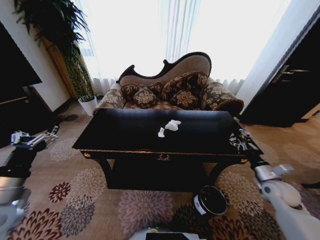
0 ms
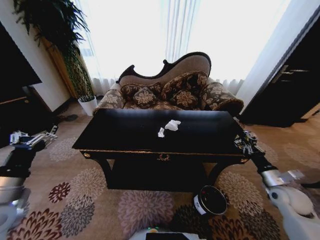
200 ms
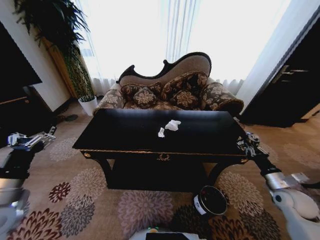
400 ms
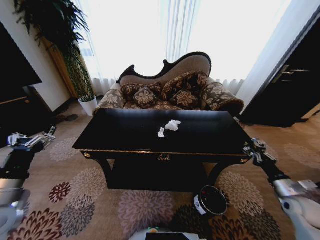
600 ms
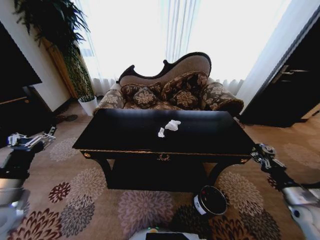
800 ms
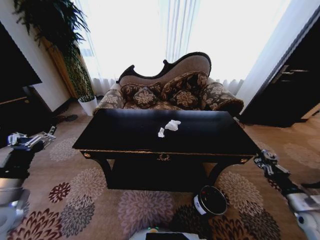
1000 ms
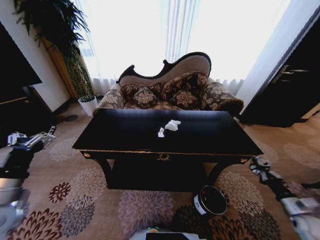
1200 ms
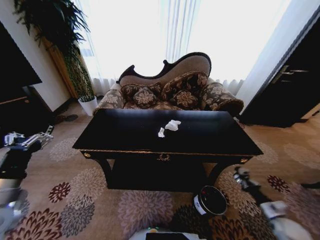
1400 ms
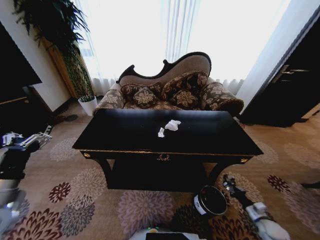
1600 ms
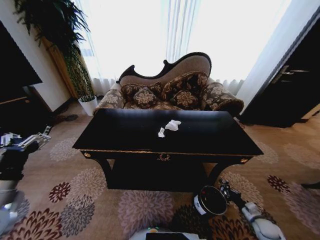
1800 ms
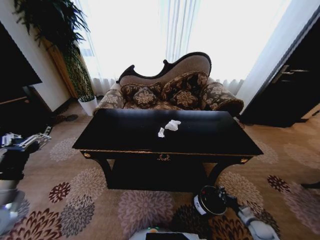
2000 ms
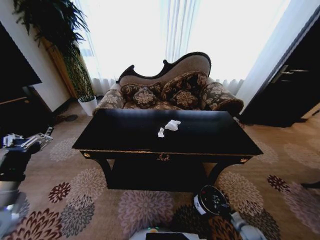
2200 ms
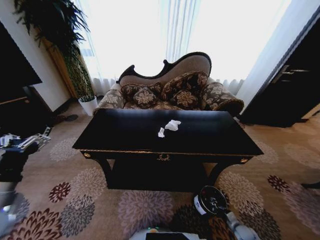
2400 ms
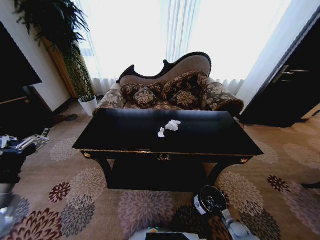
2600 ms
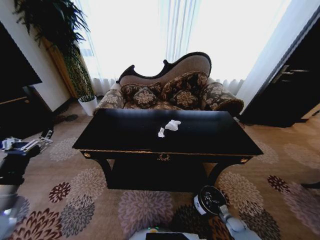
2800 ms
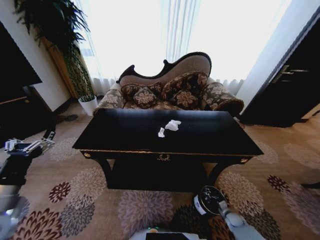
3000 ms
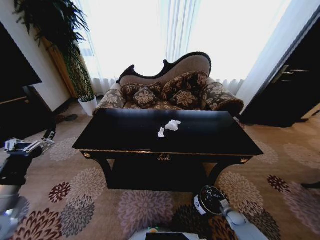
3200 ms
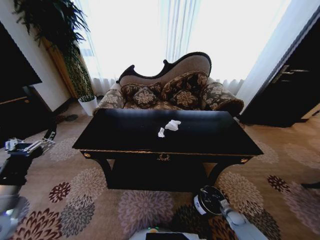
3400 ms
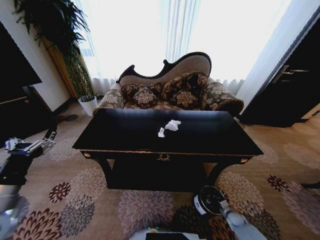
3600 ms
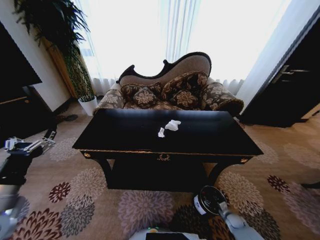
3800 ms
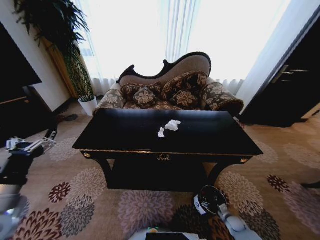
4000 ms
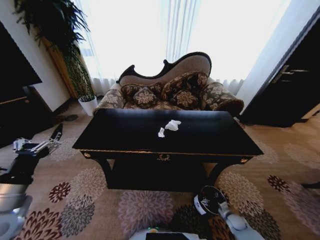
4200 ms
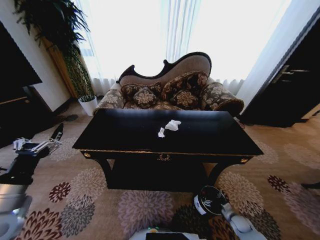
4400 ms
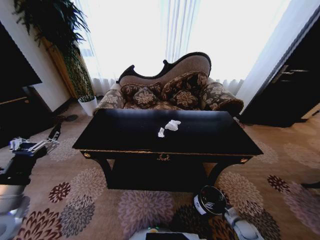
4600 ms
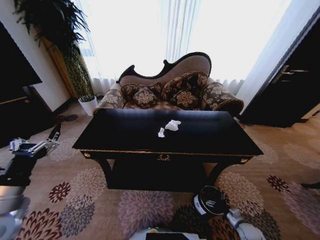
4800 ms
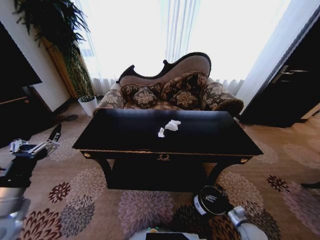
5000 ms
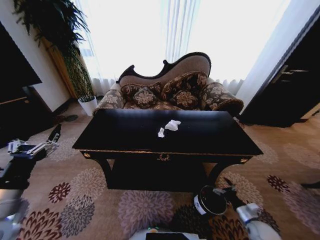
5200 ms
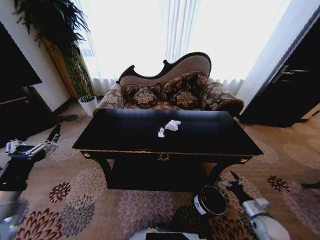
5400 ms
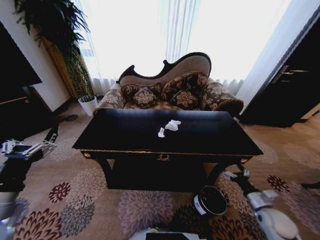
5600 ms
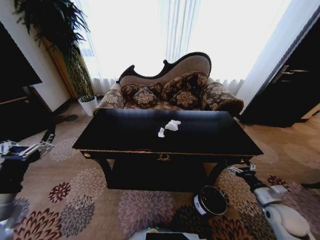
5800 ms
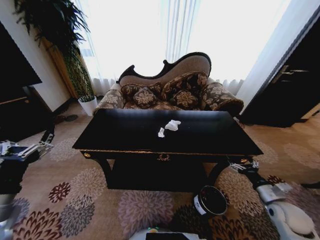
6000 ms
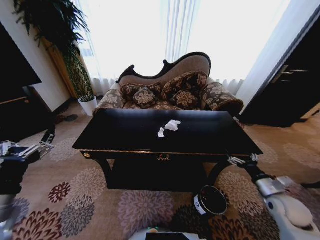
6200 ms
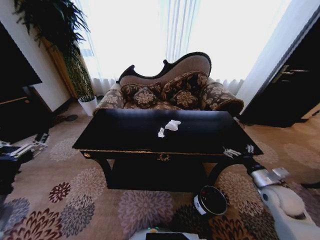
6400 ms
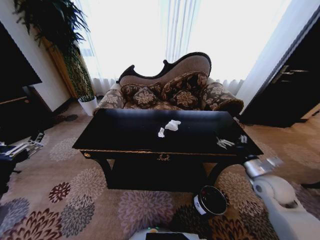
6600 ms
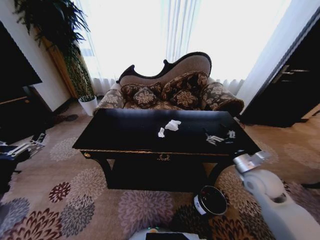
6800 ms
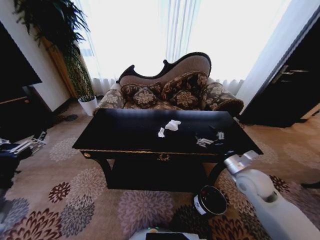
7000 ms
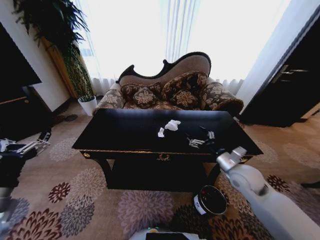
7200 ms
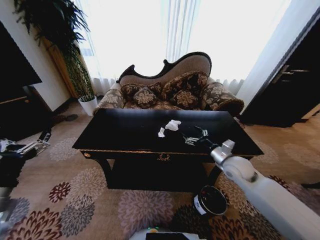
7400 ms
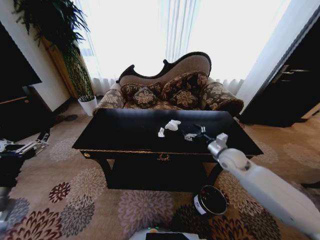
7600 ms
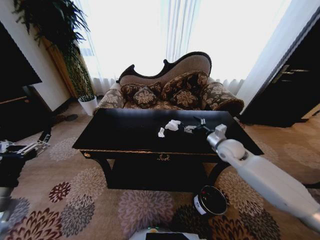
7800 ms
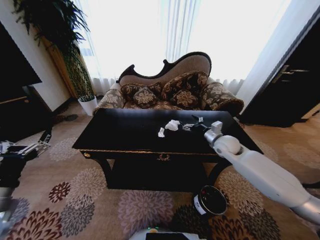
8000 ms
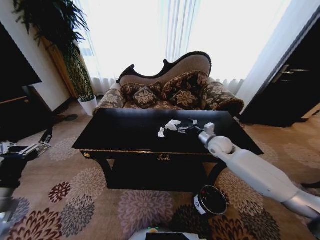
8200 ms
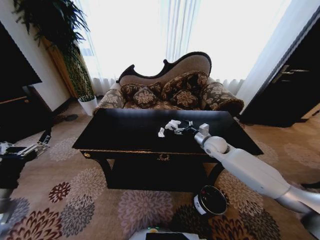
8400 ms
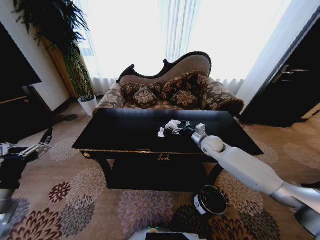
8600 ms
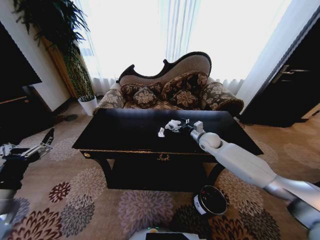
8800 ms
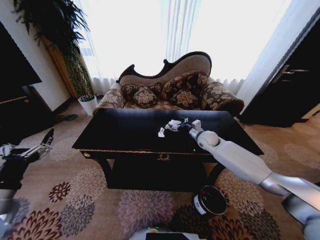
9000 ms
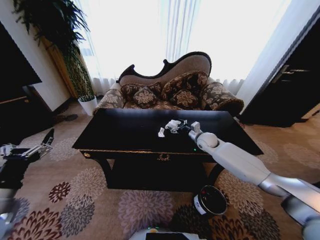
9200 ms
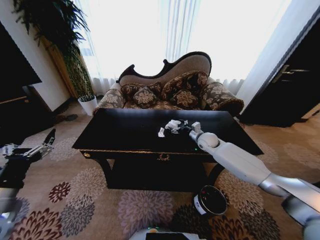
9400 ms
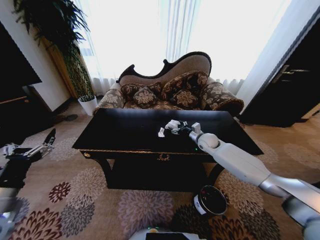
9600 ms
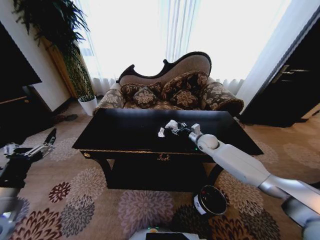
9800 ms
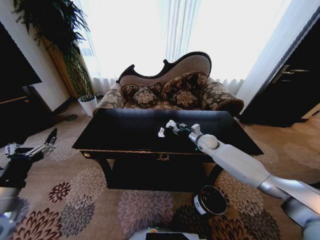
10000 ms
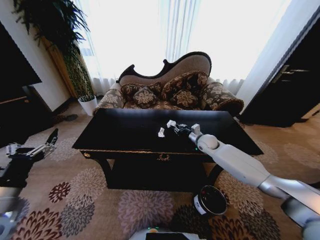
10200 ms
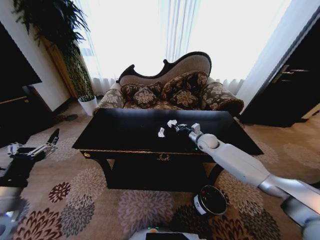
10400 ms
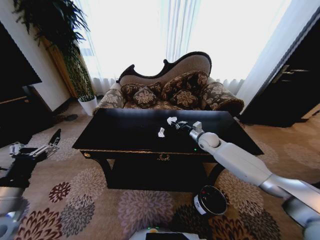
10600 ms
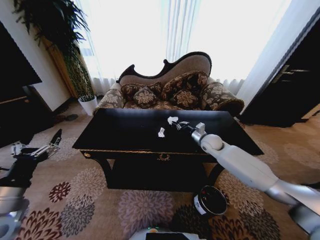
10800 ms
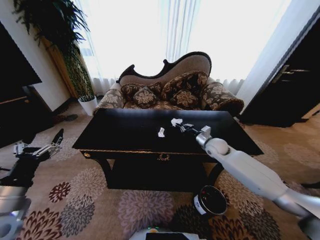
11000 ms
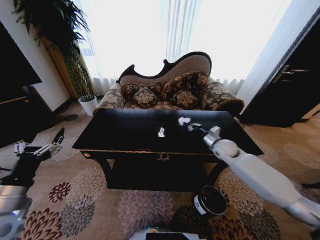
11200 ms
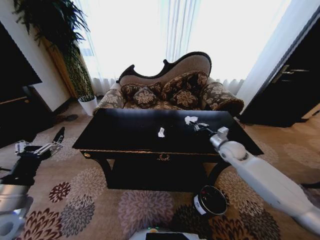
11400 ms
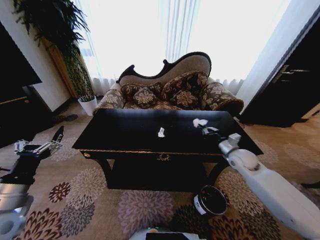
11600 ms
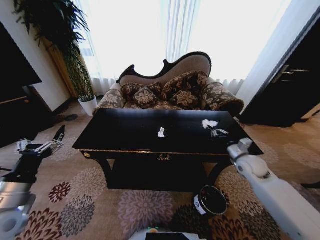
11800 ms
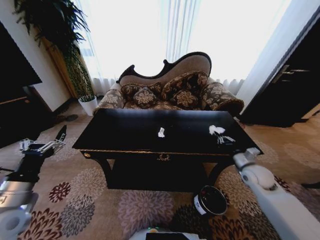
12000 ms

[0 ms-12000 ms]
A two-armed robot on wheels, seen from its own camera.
Task of the whole recording: Move to the front of the table and place the trash on the table into the trash bin.
0 ms to 1600 ms: The right gripper is displaced downward and backward by about 25 cm.
1600 ms to 3000 ms: The right gripper goes roughly 15 cm downward and to the left.
3000 ms to 4400 ms: The right gripper opens up.
4400 ms to 6000 ms: The right gripper goes about 25 cm upward.
6000 ms to 7600 ms: The right gripper travels forward, to the left and upward by about 25 cm.
7600 ms to 9000 ms: The right gripper moves forward, some 15 cm.
9000 ms to 10400 ms: The right gripper closes its fingers.
10400 ms to 12000 ms: The right gripper moves backward and to the right, roughly 25 cm.

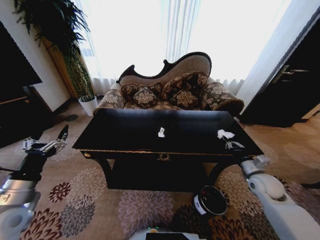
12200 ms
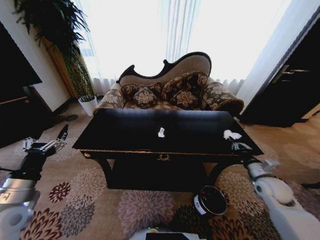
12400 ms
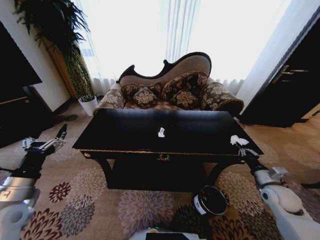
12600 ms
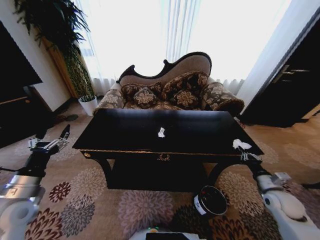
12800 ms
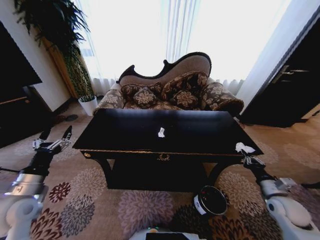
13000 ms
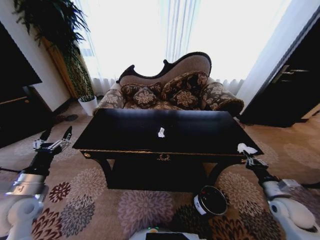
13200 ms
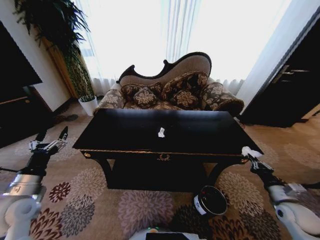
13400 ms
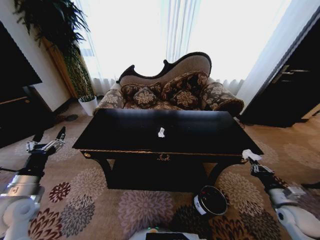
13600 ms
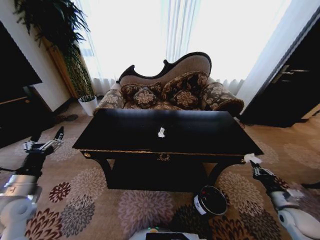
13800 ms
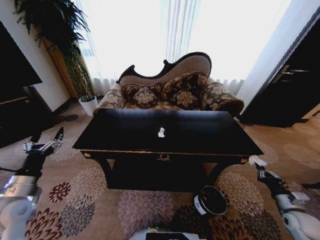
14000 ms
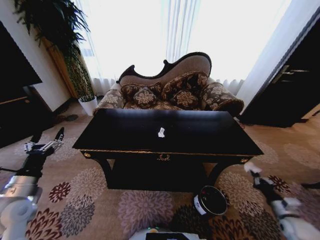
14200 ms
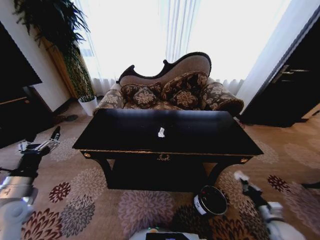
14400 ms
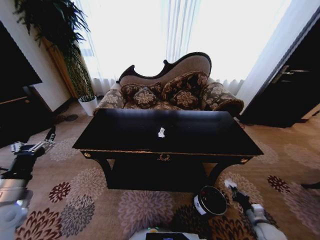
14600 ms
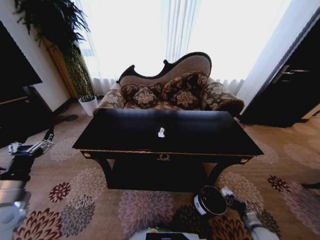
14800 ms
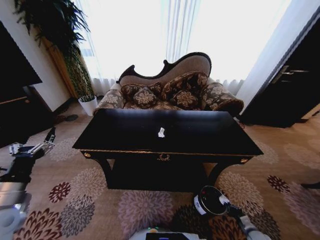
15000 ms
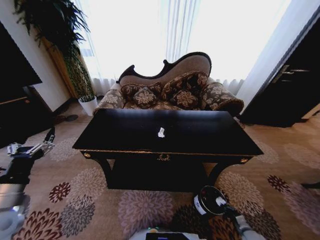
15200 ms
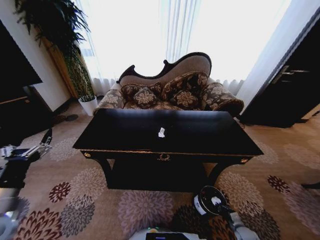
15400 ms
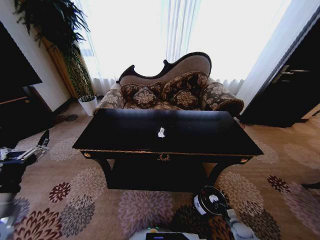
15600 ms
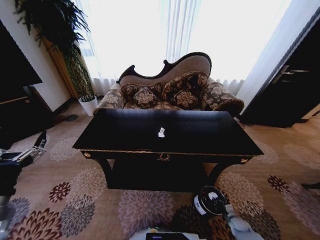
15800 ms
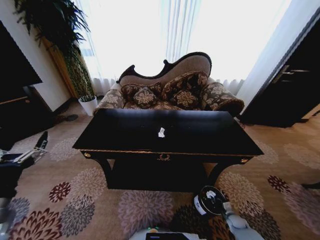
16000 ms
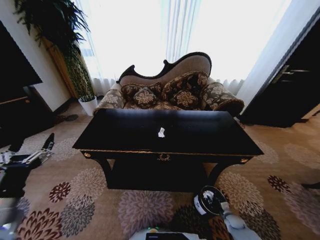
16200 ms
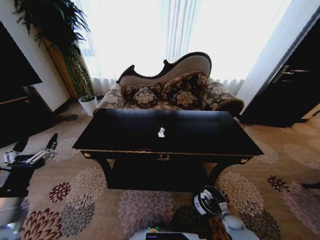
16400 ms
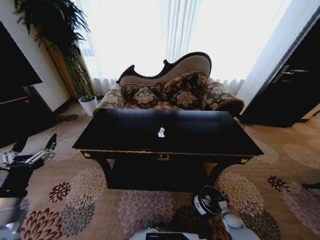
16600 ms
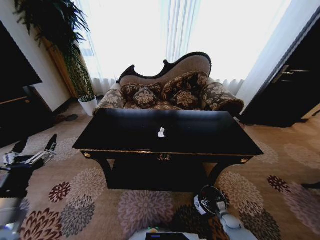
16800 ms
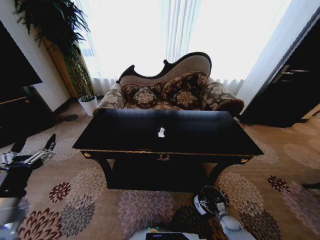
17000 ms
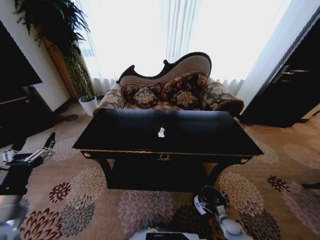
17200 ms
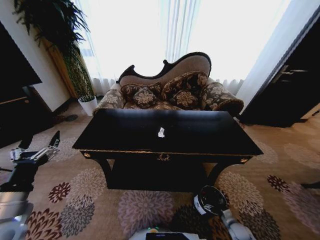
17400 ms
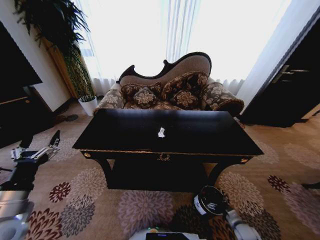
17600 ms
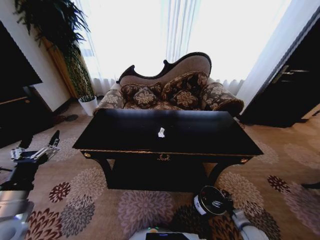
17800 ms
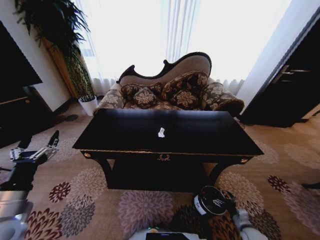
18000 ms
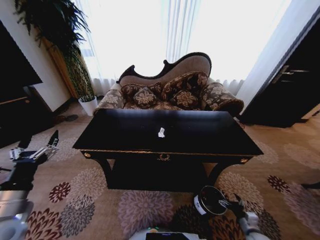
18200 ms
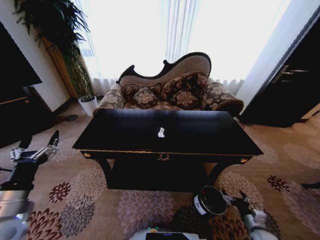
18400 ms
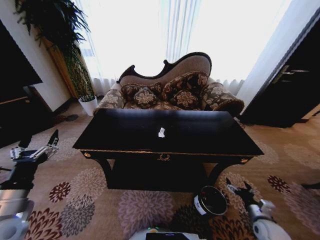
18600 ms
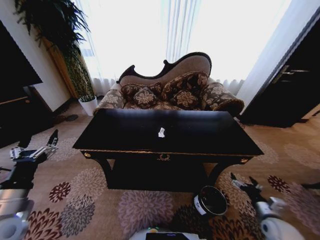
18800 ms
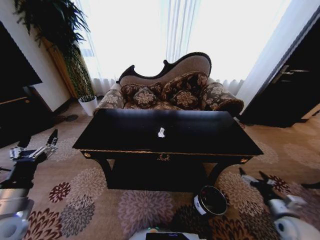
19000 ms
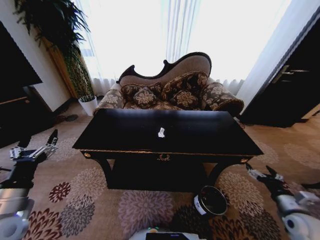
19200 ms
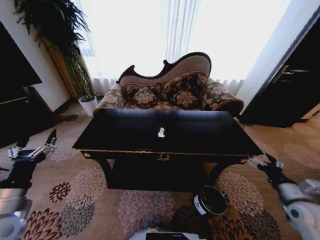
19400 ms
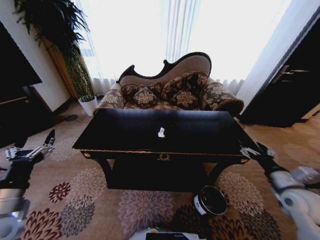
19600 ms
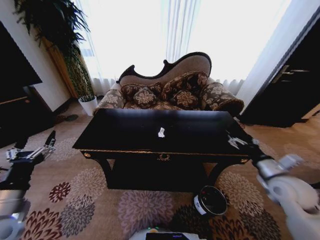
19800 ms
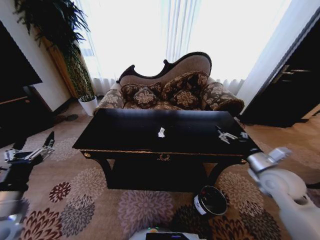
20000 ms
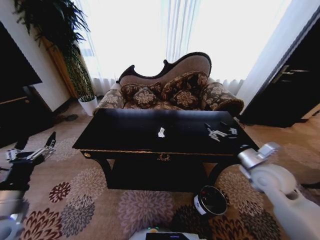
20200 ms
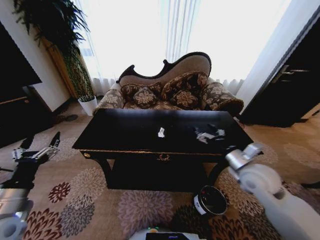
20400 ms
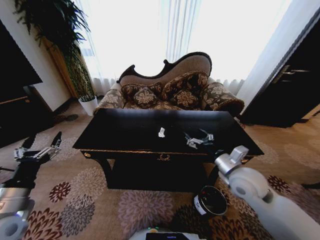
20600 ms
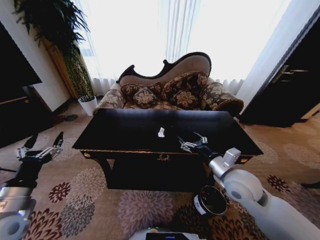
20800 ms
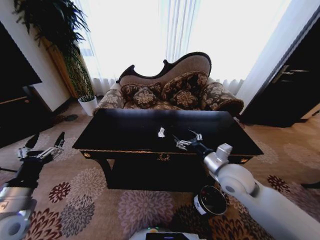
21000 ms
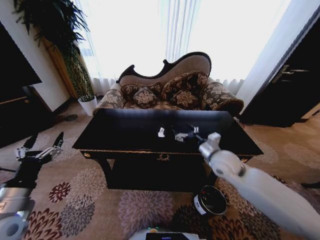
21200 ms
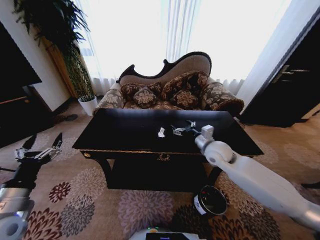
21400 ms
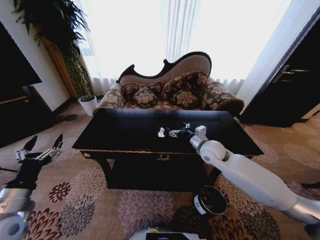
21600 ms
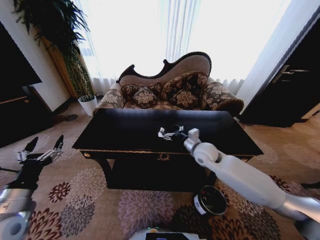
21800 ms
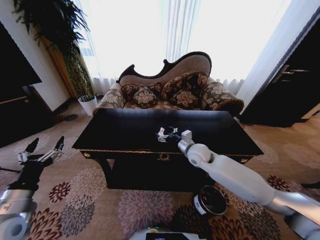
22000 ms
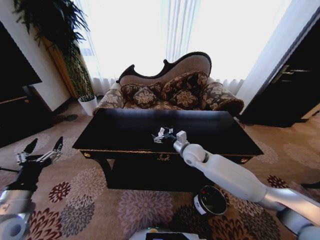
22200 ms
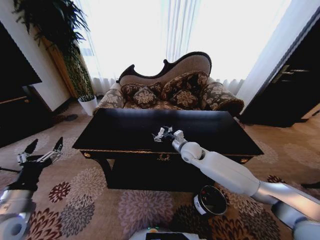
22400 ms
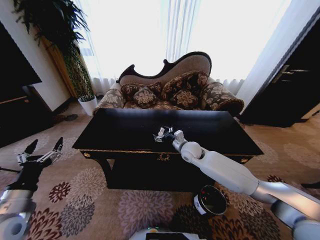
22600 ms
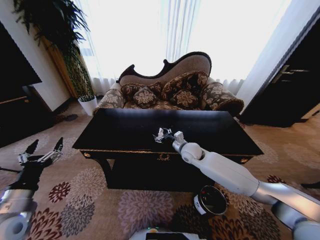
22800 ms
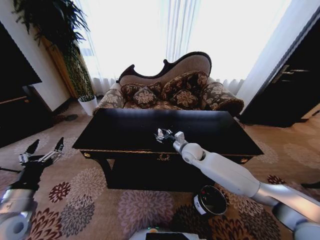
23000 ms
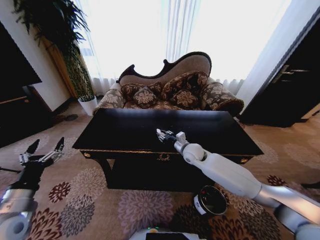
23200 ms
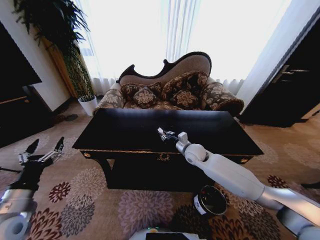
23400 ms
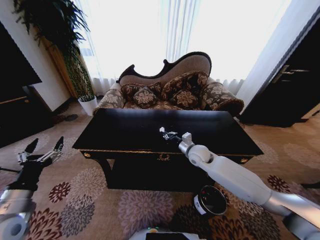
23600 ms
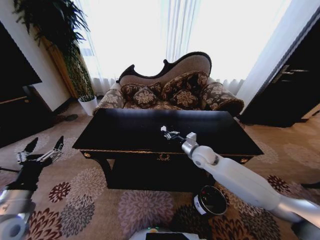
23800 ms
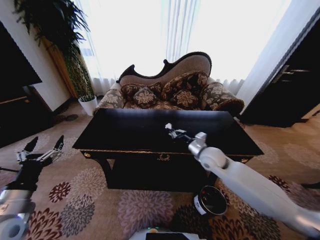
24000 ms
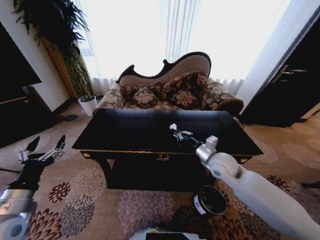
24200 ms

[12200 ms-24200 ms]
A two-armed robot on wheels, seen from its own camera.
Task of the whole recording: Move to the front of the table and place the trash on the table into the trash bin.
12200 ms to 13800 ms: The right gripper travels backward, to the right and downward by about 15 cm. Meanwhile the left gripper changes place by some 5 cm.
13800 ms to 15200 ms: The right gripper travels downward by approximately 25 cm.
15200 ms to 16600 ms: The right gripper shifts about 10 cm forward and to the left, and opens up.
16600 ms to 18200 ms: The right gripper moves upward and backward, about 15 cm.
18200 ms to 19800 ms: The right gripper is displaced upward by roughly 30 cm.
19800 ms to 21200 ms: The right gripper goes some 20 cm to the left and forward.
21200 ms to 22600 ms: The right gripper moves forward, to the left and downward, roughly 15 cm.
22600 ms to 24200 ms: The right gripper shifts approximately 15 cm backward and to the right, and closes up.
